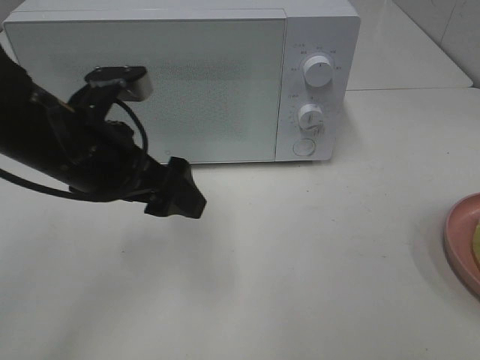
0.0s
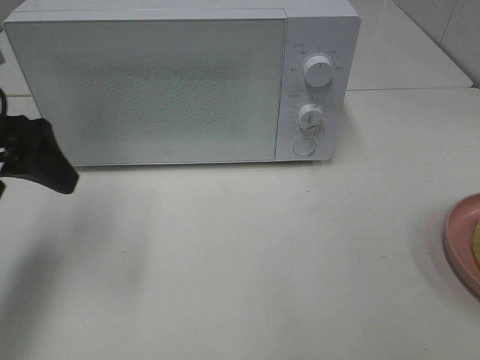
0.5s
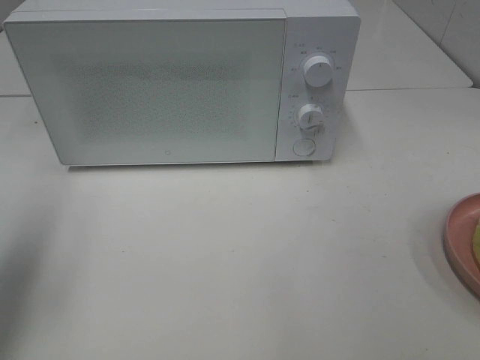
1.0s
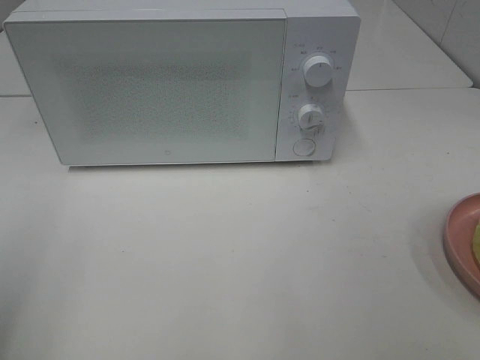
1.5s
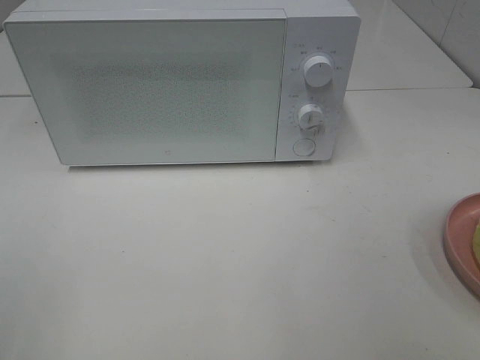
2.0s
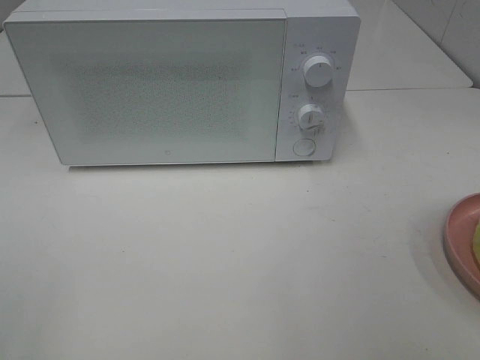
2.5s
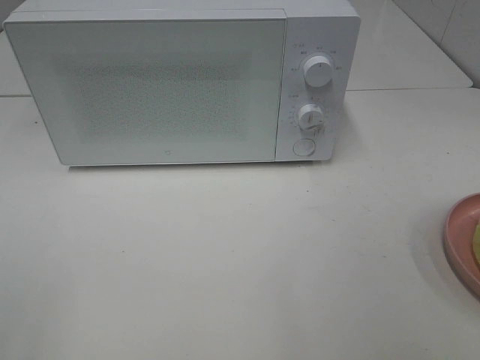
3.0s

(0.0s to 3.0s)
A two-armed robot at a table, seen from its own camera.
Task of the whole recording: Heat Sandwich.
0.0s - 1.5s: The left gripper is displaced to the left, backward and upward by about 25 cm.

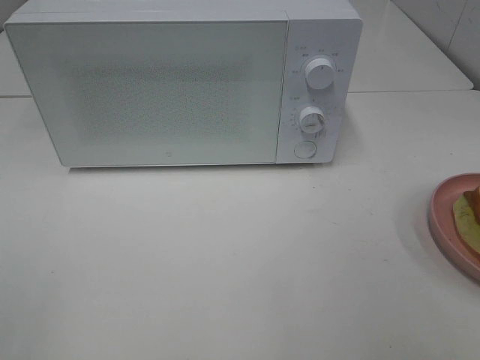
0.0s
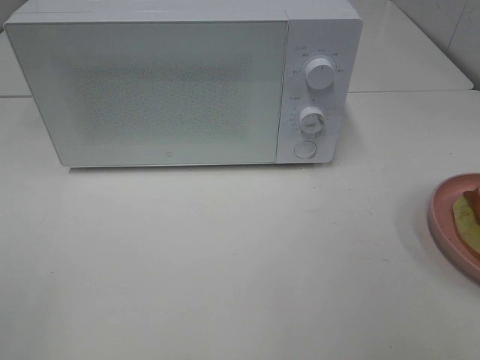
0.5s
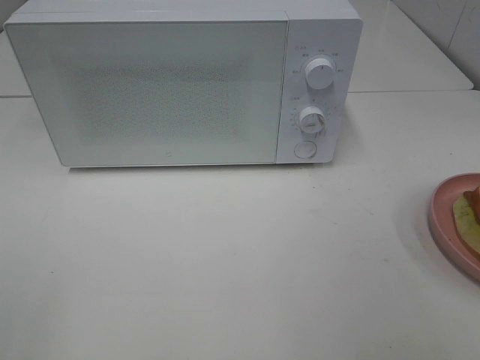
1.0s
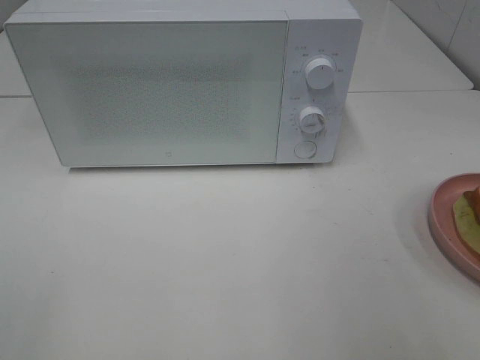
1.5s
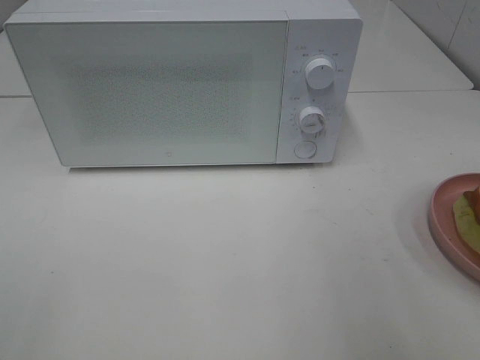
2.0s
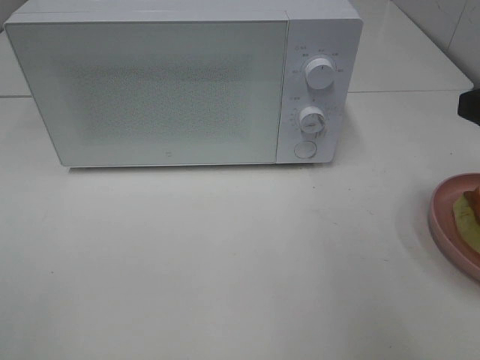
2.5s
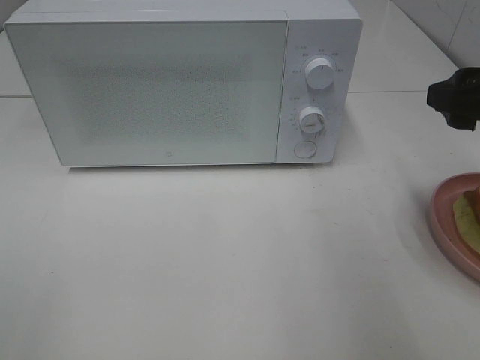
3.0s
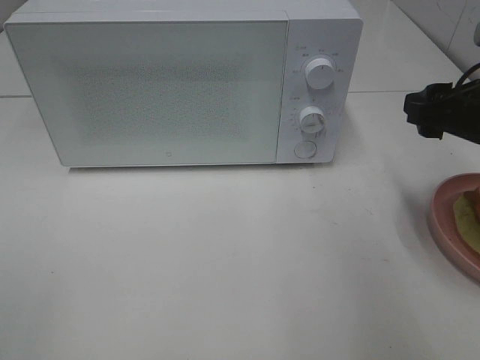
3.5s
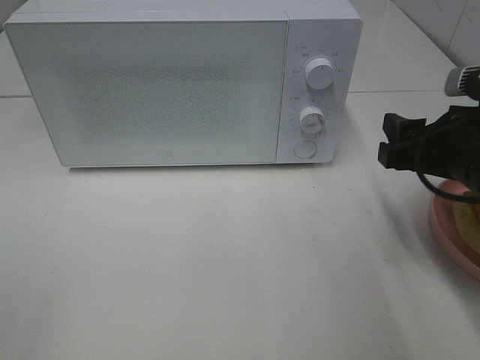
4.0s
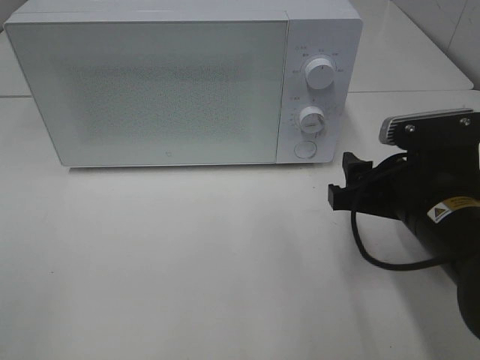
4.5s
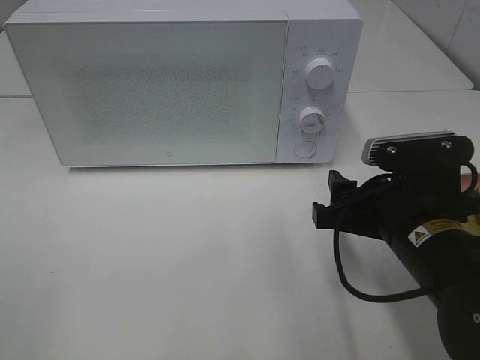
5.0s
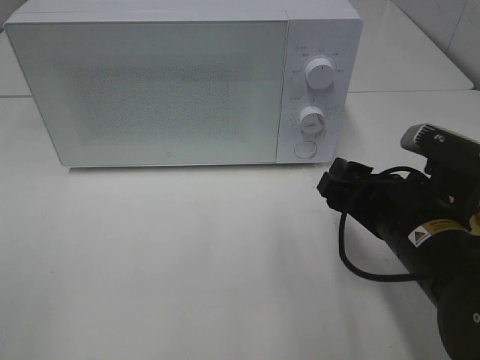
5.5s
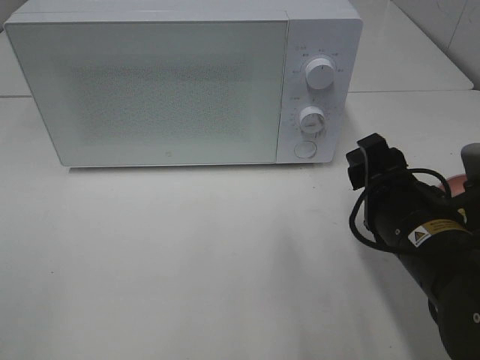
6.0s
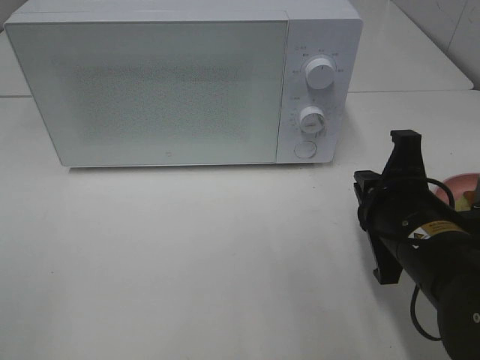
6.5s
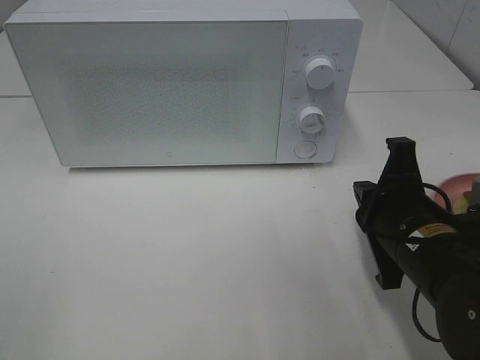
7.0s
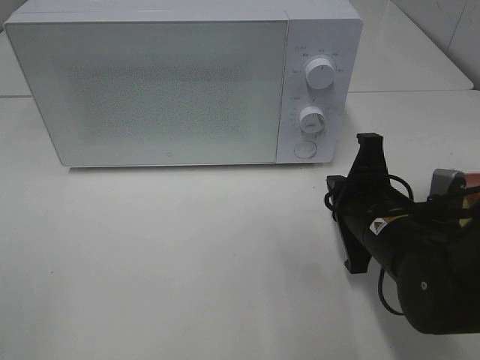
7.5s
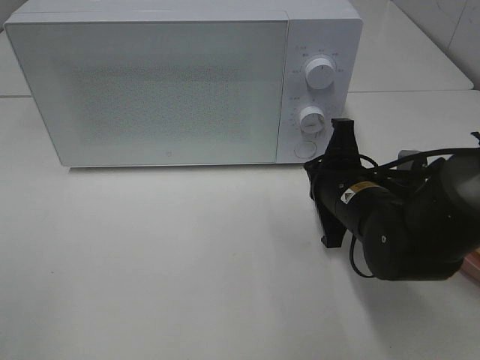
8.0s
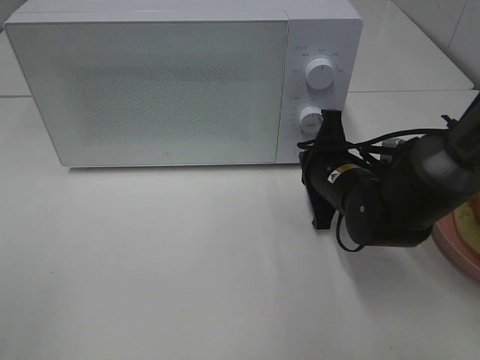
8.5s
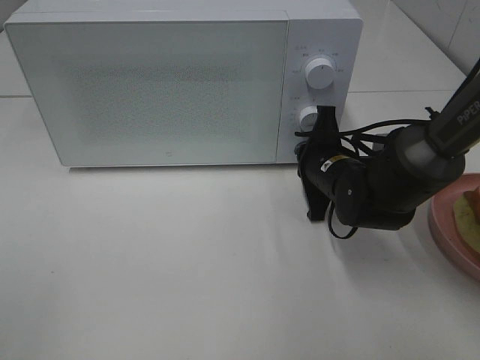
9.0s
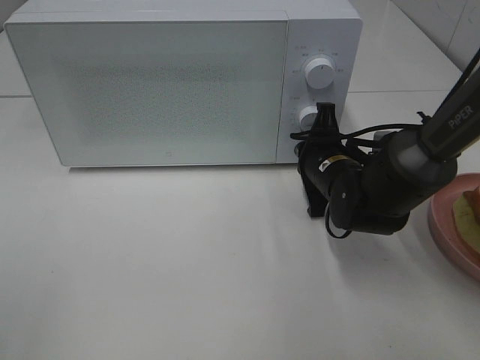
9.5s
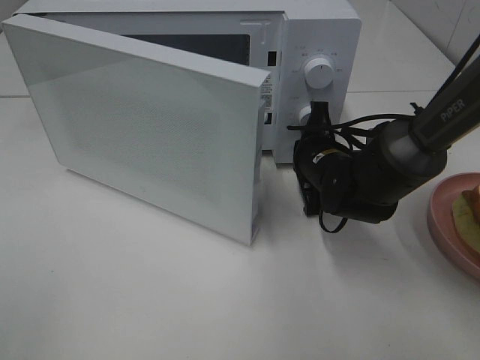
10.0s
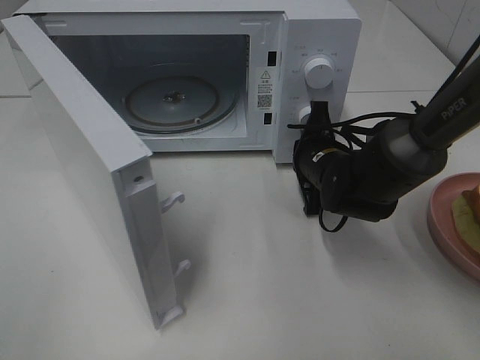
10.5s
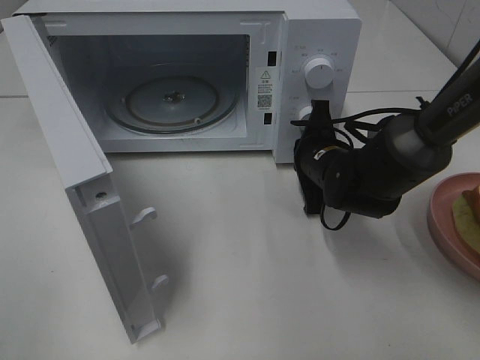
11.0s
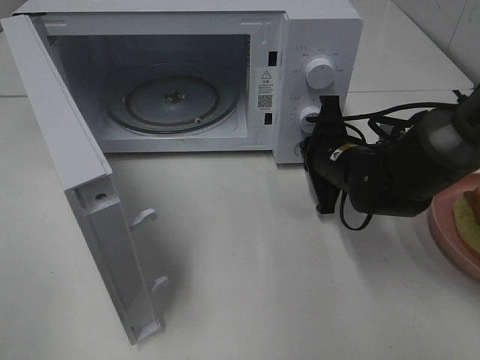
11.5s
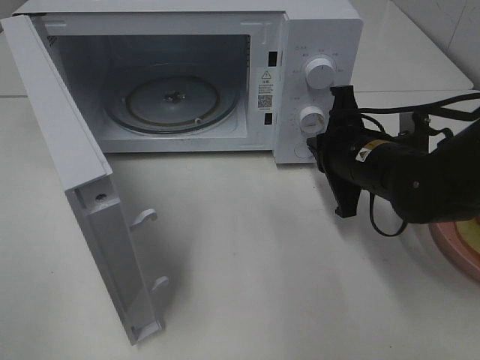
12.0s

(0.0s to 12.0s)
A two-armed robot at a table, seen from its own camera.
Task of the whole recording: Heat Sandwich.
Step, 0.0s - 11.5s: Right hand: press the switch.
2.0s - 4.0s: The right gripper moves downward and forward, some 15 cm.
4.0s - 6.0s: The right gripper moves to the left, roughly 5 cm.
6.0s - 8.0s: The right gripper is displaced forward by roughly 10 cm, and closes its fingers.
8.0s - 10.0s: The right gripper moves forward, roughly 10 cm.
10.0s - 12.0s: The right gripper shifts some 5 cm backward.

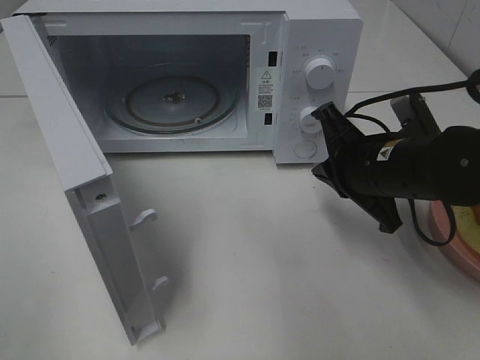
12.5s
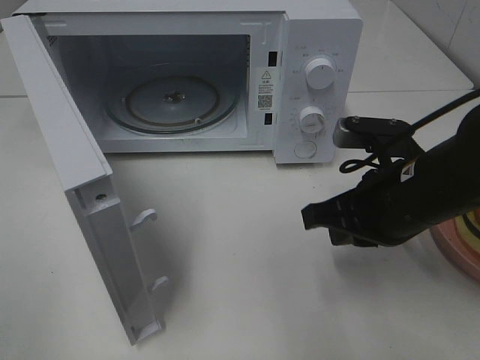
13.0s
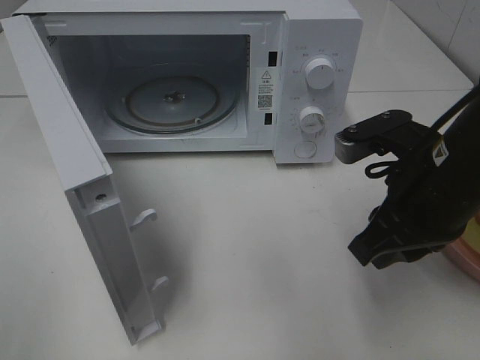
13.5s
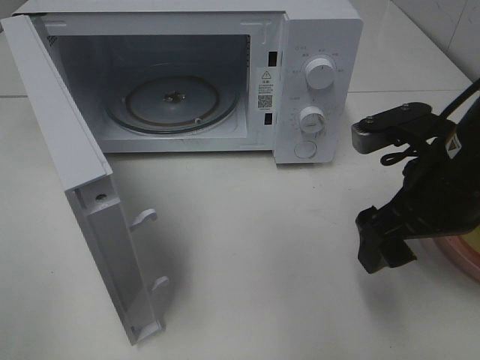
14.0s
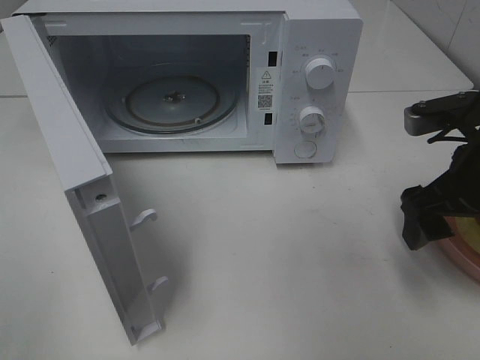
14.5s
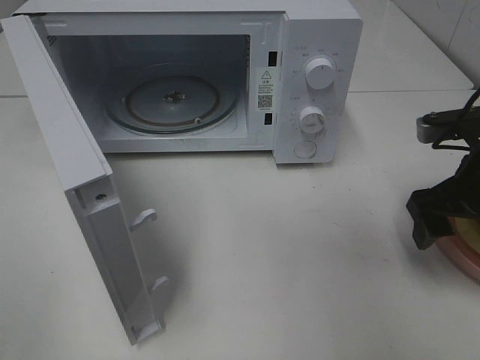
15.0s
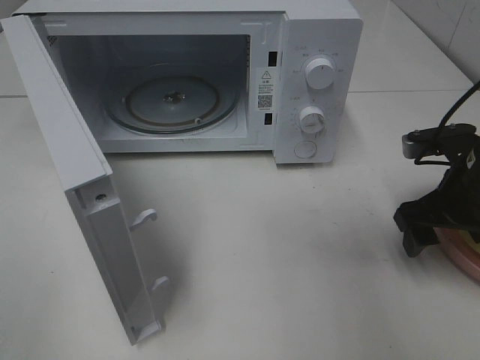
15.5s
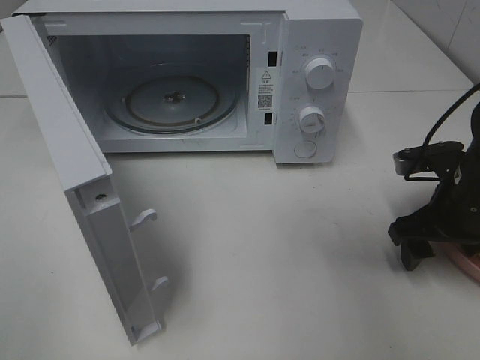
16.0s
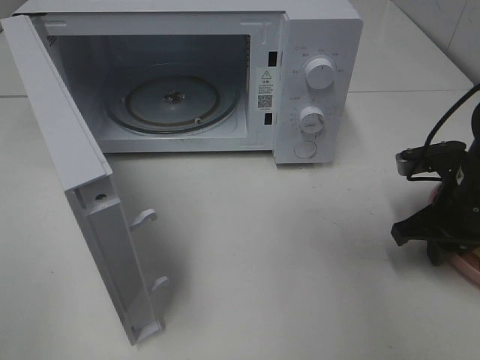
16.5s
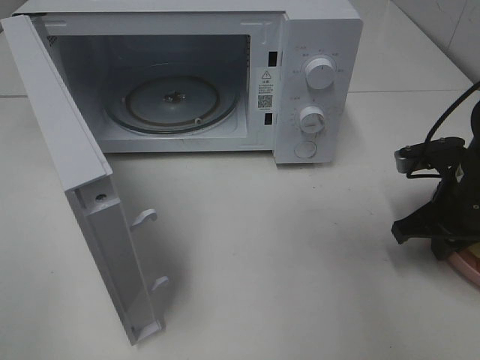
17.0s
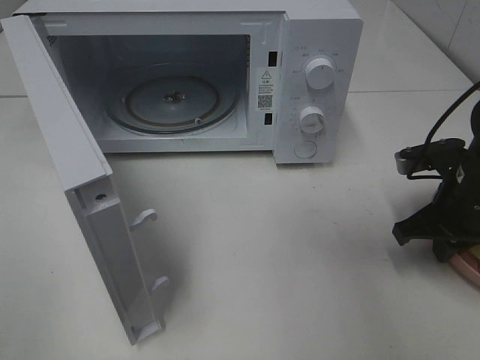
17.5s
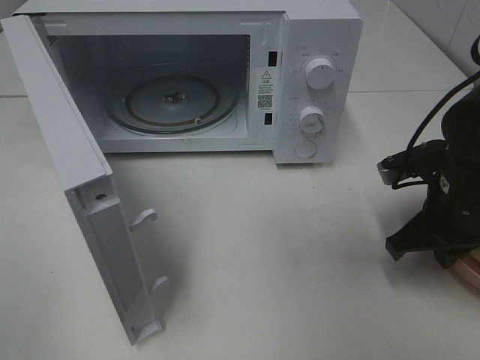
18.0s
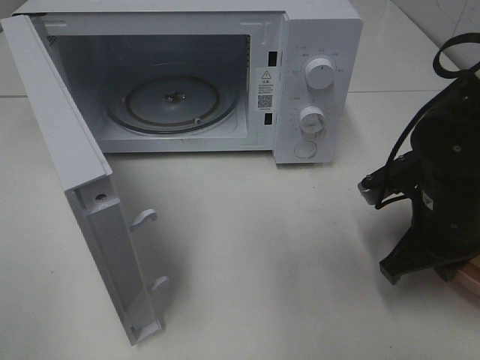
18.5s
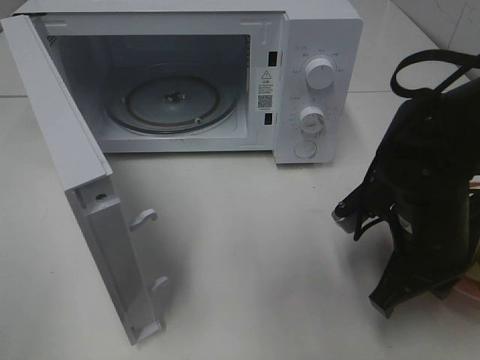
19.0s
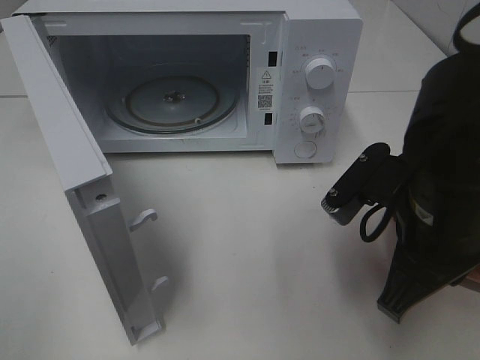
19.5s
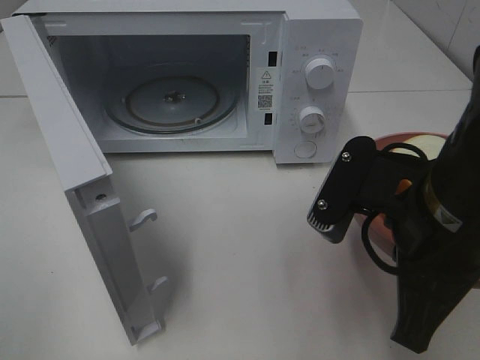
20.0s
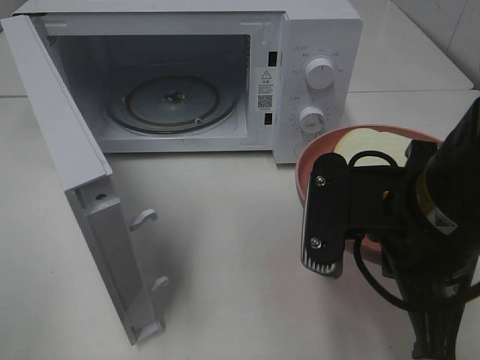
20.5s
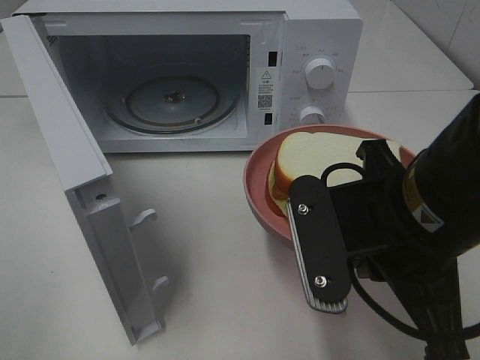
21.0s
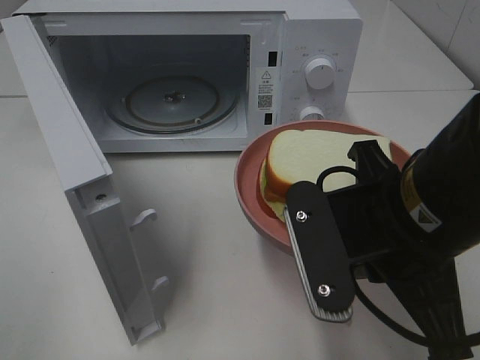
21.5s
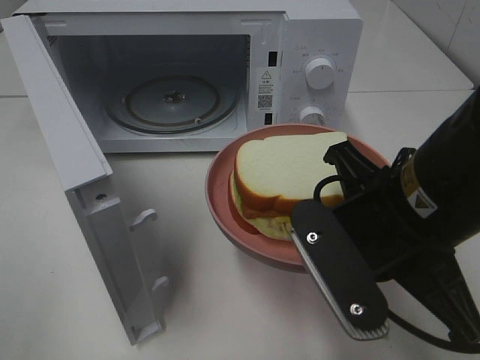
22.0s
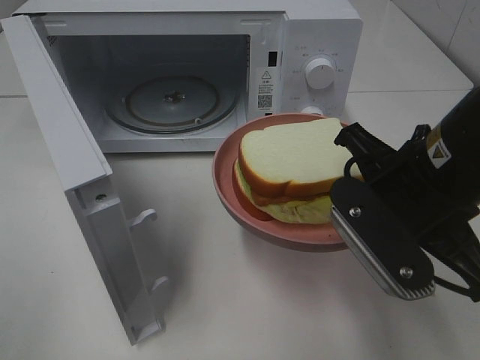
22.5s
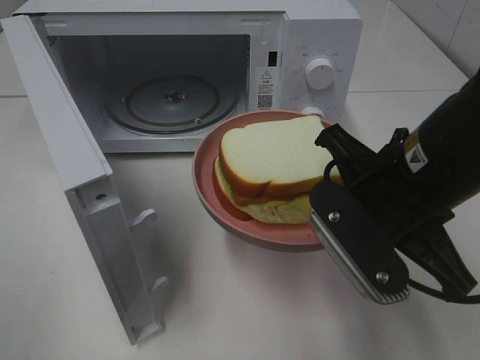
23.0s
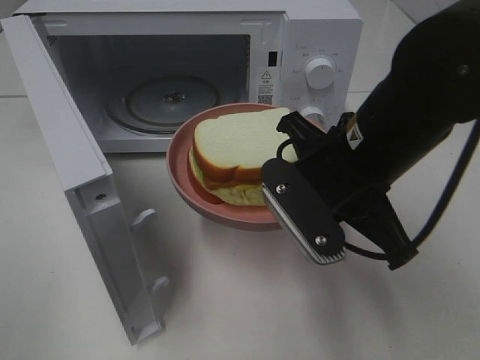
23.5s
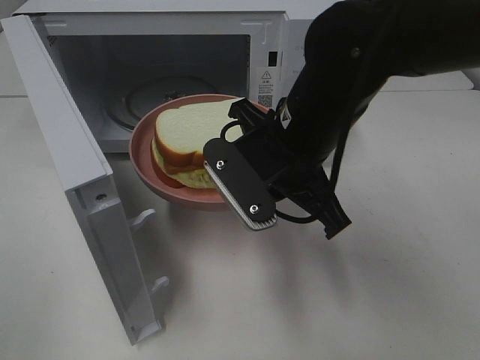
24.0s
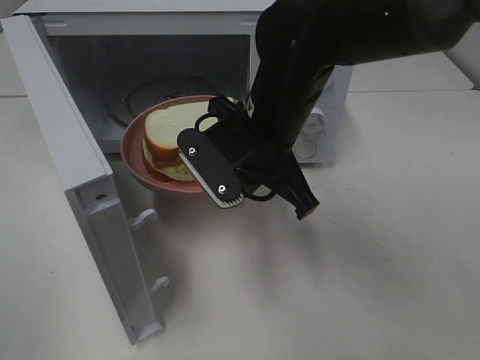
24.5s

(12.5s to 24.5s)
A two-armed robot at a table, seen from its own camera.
Task of the whole recording: Heat Sandwich.
Step, 12.5s - 17.0s: Right hand: grab the plate with the sandwich.
12.5s - 14.5s: The right gripper goes roughly 10 cm to the right, and opens up.
14.5s - 16.5s: The right gripper moves downward, about 10 cm, and closes its fingers.
16.5s - 18.5s: The right gripper goes approximately 5 cm to the left.
18.5s - 20.5s: The right gripper heads upward, backward and to the left, covering approximately 15 cm.
22.5s - 24.5s: The right gripper heads to the left and forward, covering approximately 15 cm.
